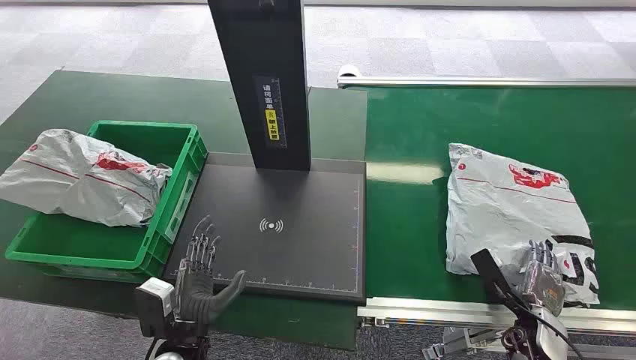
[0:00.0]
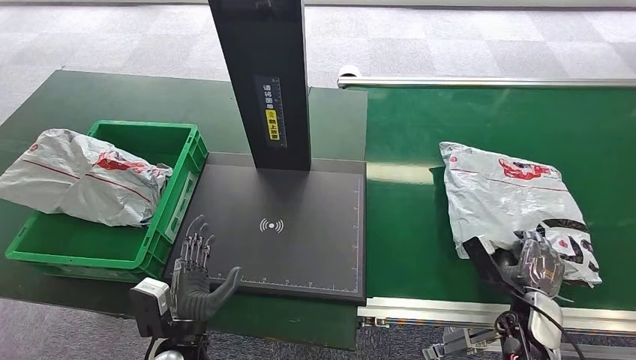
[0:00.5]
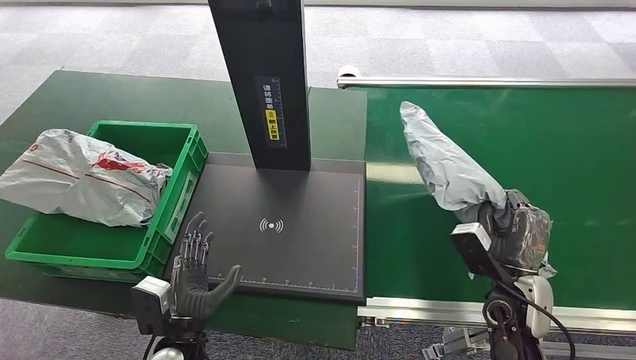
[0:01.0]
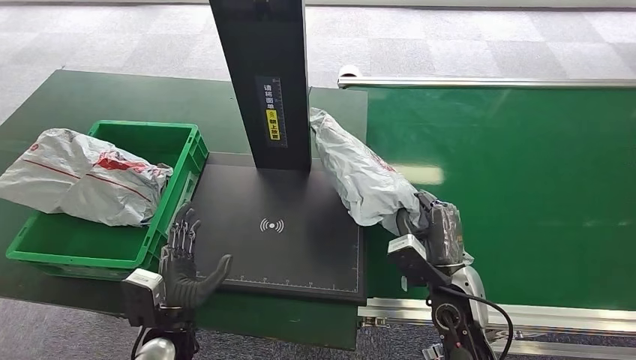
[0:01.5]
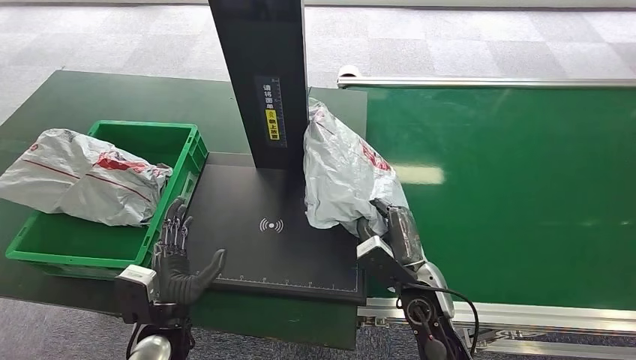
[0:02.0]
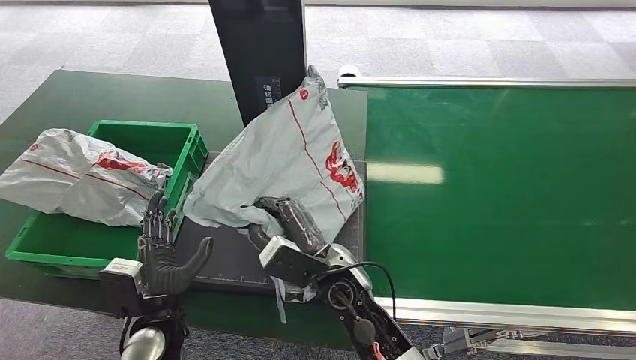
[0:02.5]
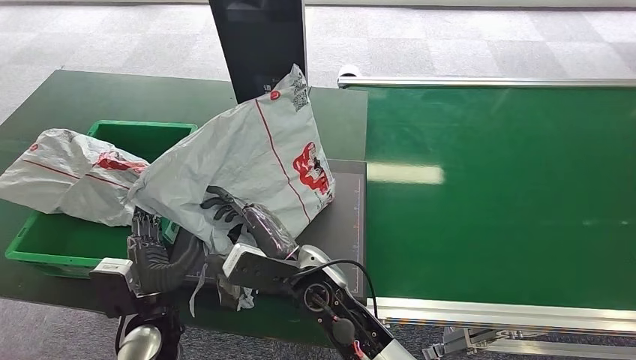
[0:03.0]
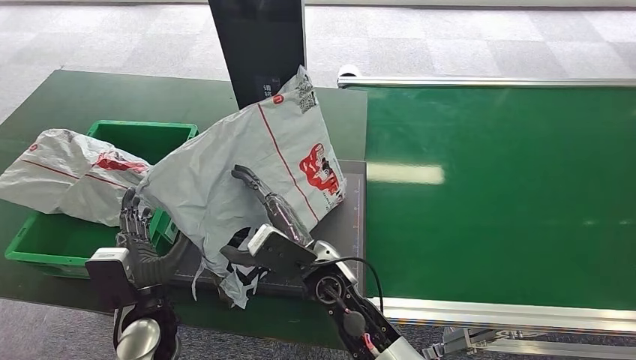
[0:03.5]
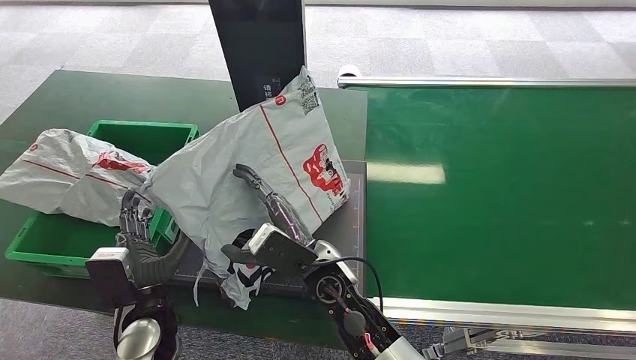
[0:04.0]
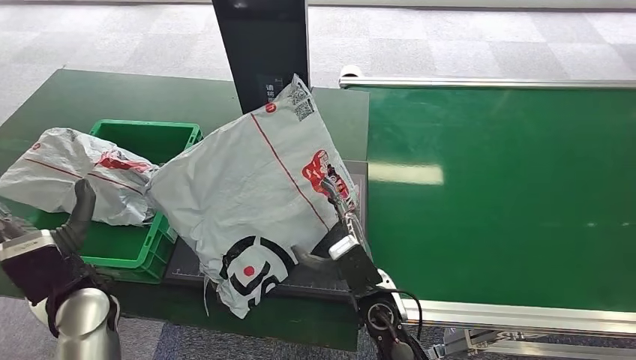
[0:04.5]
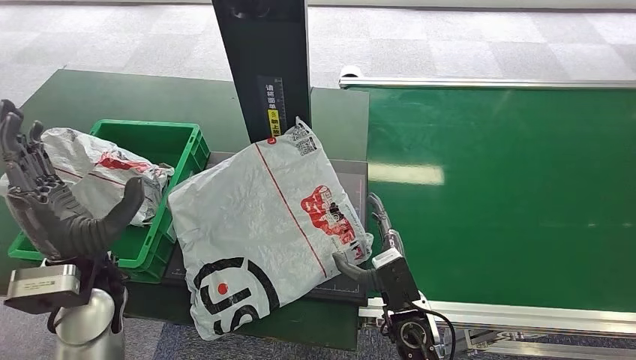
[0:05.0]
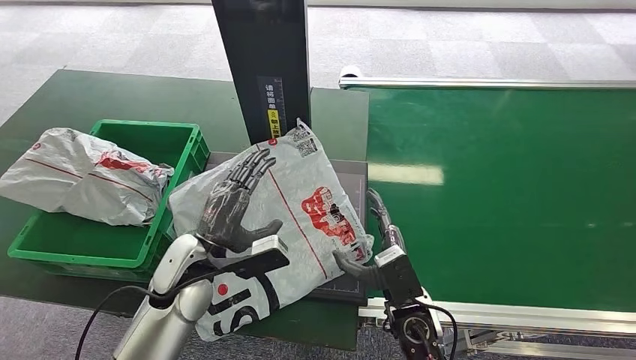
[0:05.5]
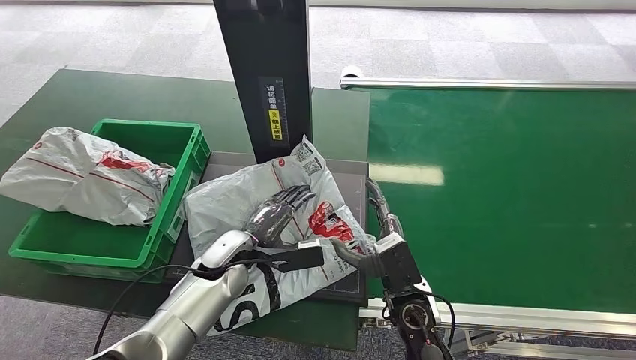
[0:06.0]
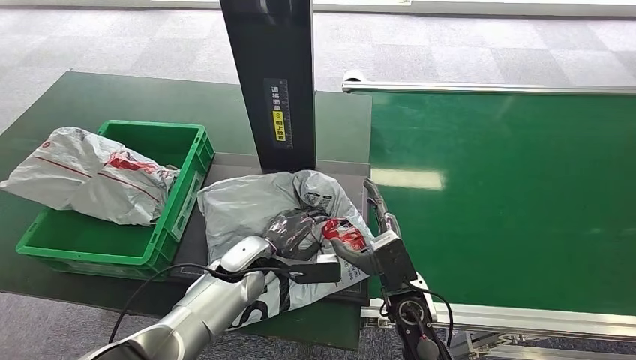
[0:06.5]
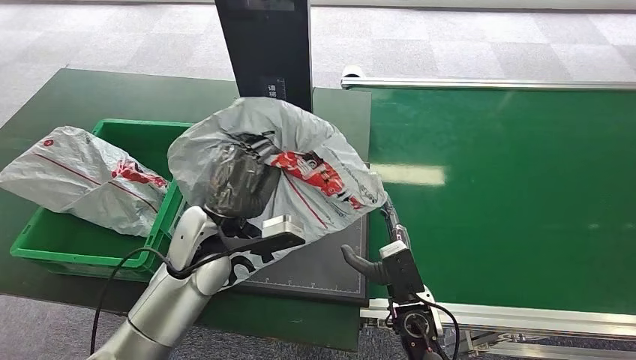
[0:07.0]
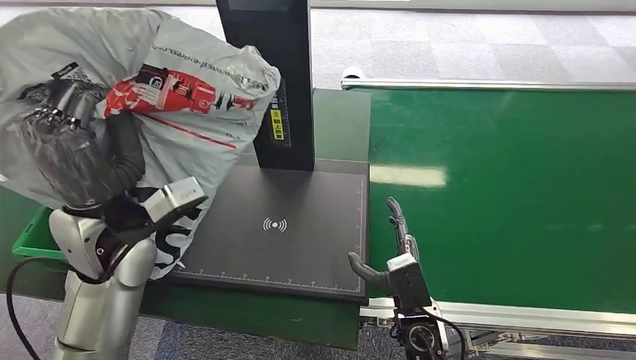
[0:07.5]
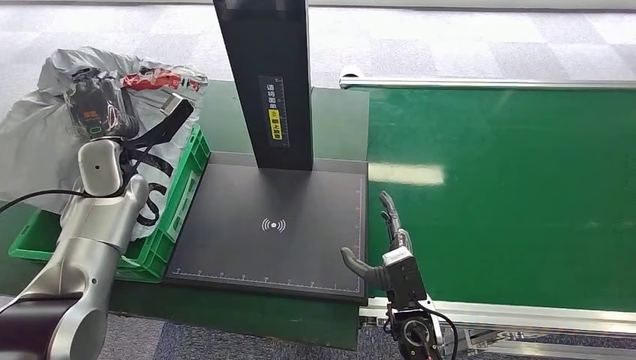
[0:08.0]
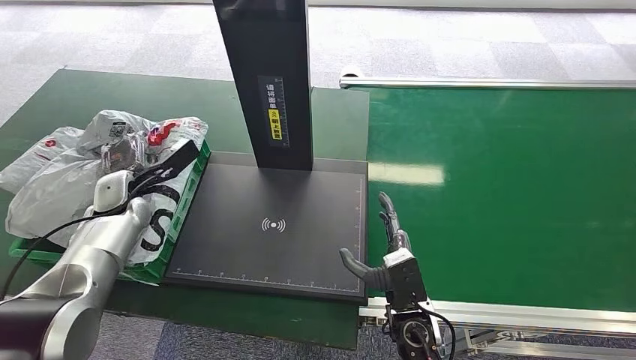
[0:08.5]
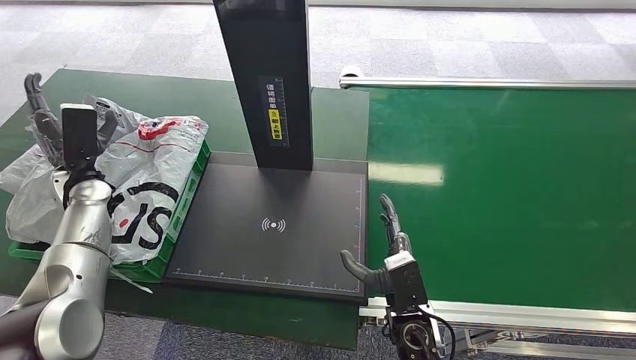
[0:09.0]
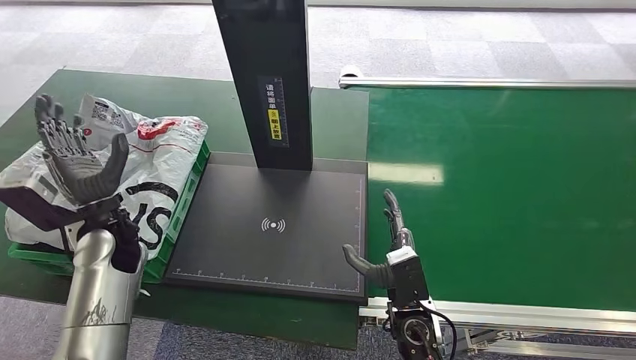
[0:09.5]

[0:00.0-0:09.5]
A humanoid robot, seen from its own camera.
Step, 0:00.0 to 0:01.5: Pick up the package from the conveyor belt.
Step, 0:02.0 to 0:05.5: Place the package onto the inbound machine.
Step, 0:06.0 to 0:07.5: Pick up the package from the inbound machine.
Step, 0:08.0 to 0:09.5: Place the package into the parcel locker.
